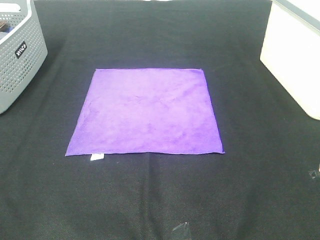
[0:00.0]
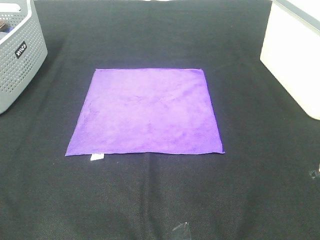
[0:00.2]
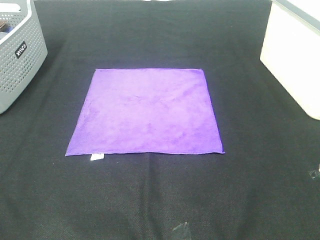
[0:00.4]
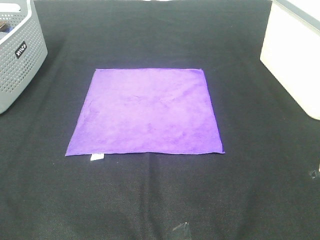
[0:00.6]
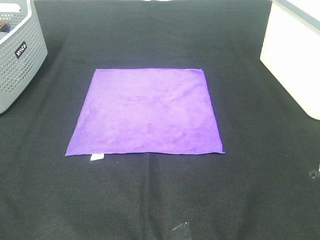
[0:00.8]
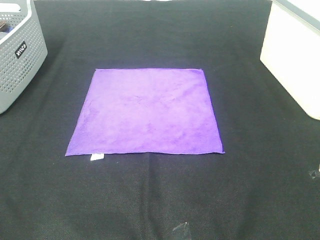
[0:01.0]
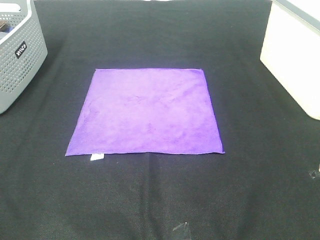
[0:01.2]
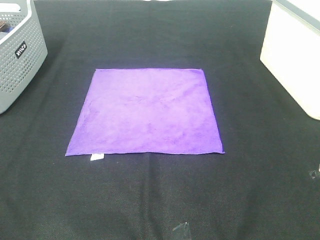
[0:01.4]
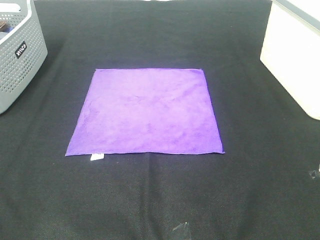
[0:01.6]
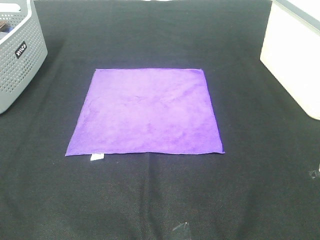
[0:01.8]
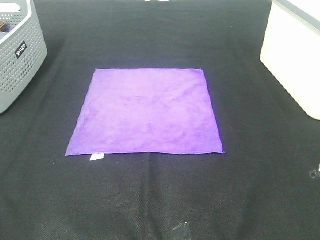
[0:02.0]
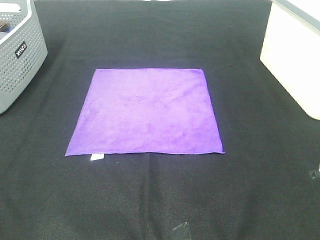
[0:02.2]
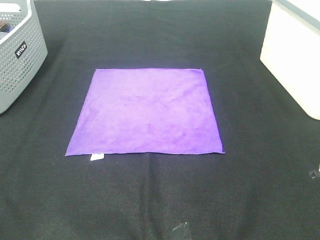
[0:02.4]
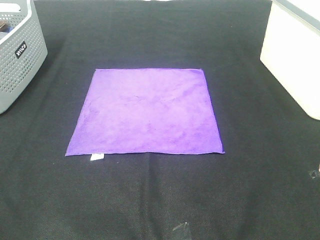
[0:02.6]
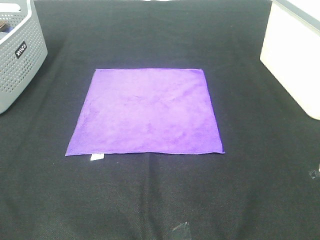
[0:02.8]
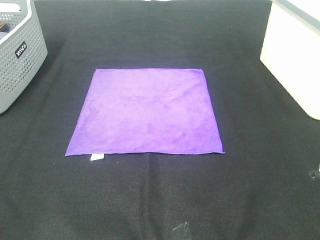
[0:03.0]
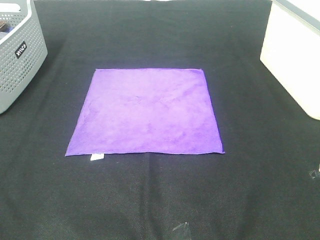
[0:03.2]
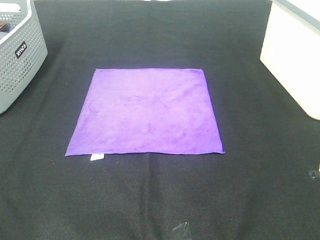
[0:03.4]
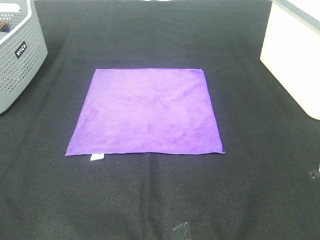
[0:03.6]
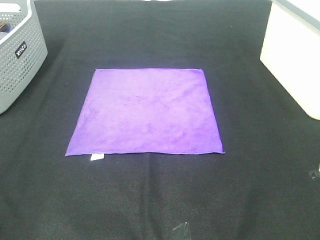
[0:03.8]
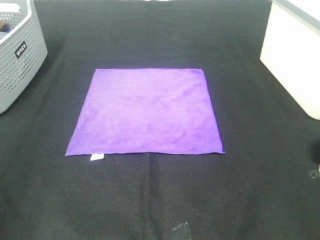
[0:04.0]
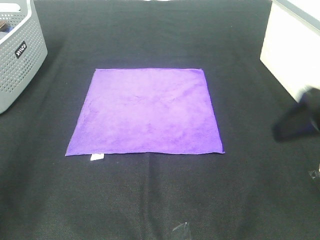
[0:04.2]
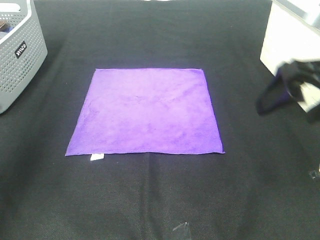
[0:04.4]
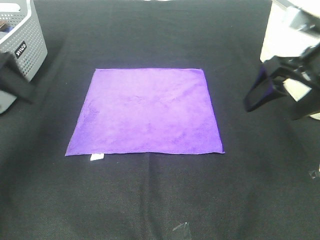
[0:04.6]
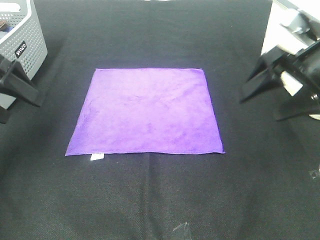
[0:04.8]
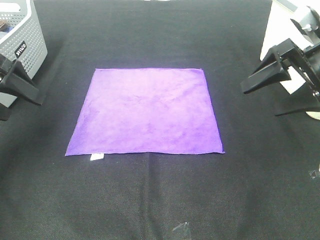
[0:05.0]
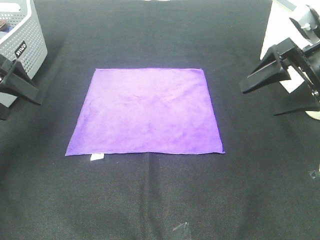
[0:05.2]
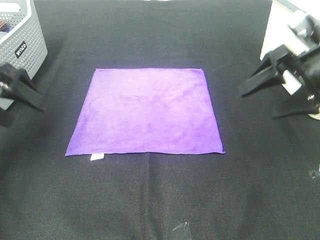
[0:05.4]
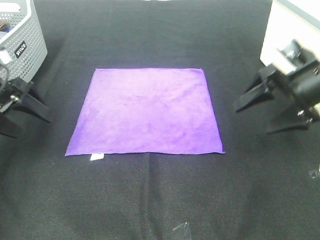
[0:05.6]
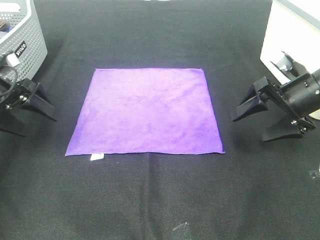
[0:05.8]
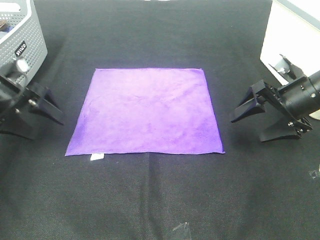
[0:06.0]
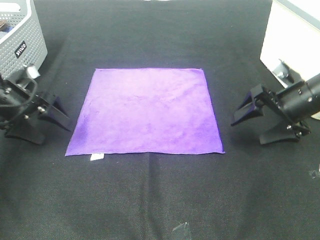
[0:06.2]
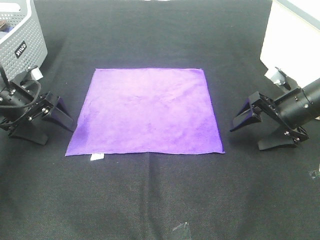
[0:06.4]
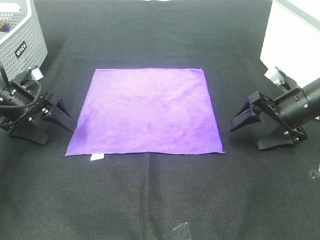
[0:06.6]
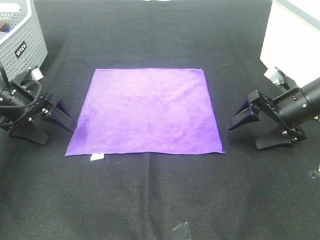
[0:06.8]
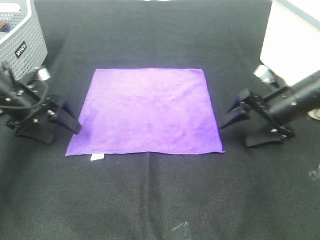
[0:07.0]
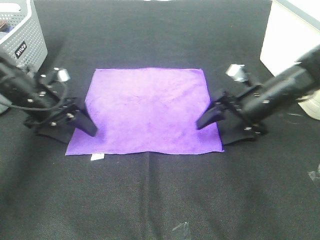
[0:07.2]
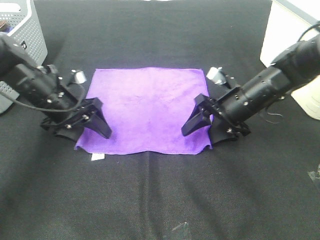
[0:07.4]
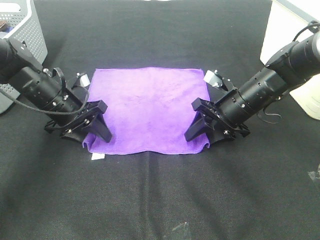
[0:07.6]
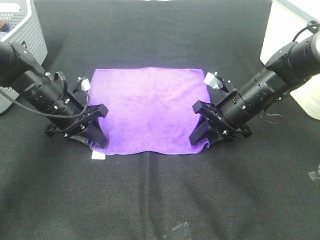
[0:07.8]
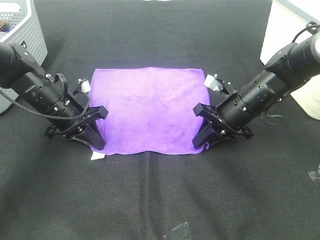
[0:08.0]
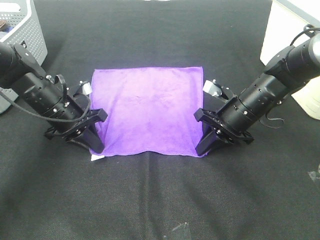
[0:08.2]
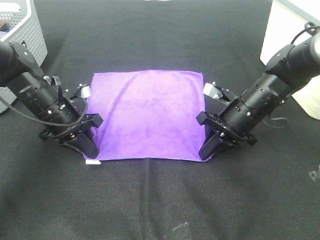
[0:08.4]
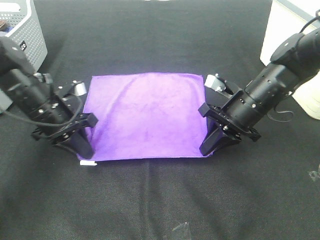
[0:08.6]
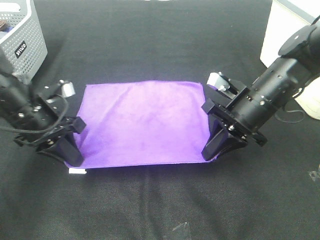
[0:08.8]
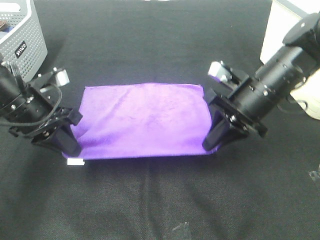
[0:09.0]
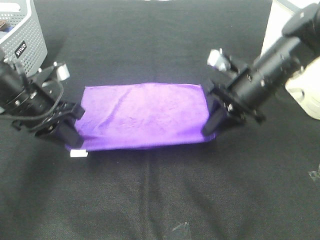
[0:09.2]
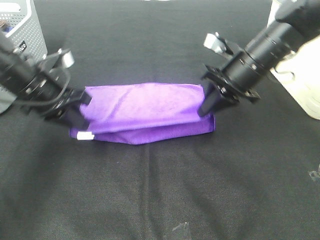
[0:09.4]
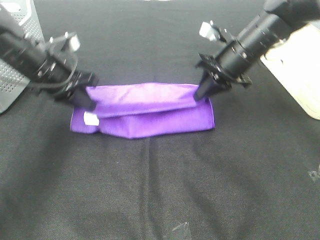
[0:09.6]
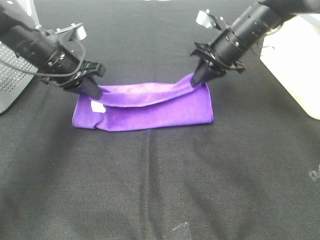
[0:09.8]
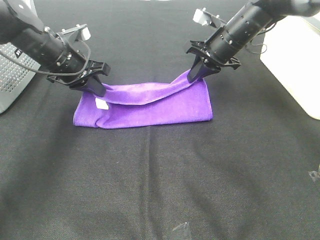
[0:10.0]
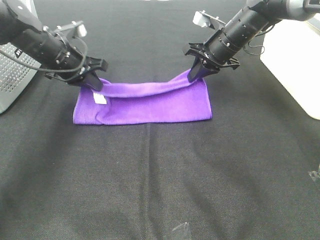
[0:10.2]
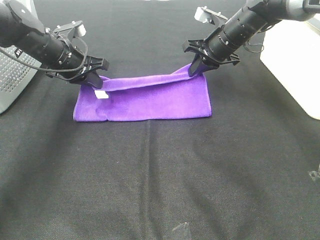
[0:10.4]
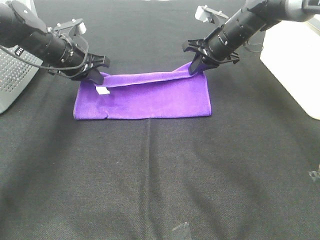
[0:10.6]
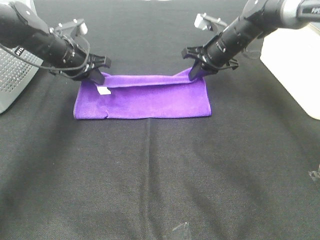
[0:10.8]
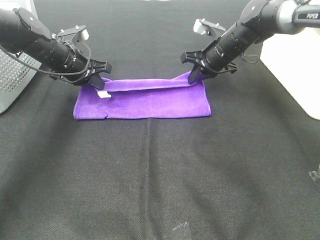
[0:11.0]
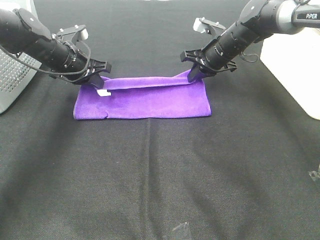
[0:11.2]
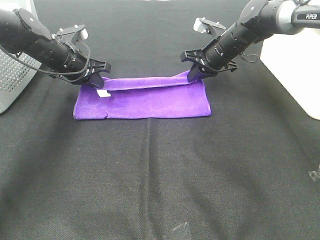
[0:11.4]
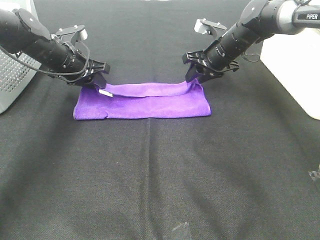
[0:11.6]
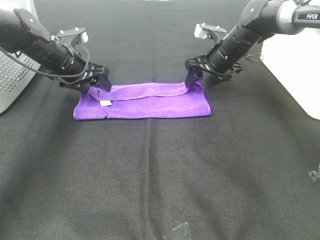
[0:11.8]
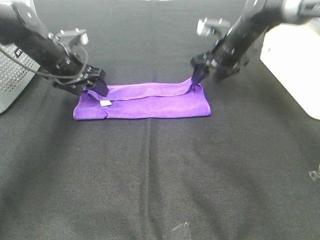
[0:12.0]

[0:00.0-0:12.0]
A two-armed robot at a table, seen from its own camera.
Task of the whole recording: Fold towels.
Step, 0:00.0 to 0:08.0: Left hand: grab the bottom left corner of purple towel.
Step, 0:00.0 to 0:08.0: Right hand: grab the bottom right corner of purple towel.
Step, 0:08.2 to 0:11.2: Left hand: fold the purple towel up.
Step, 0:08.2 to 0:11.2: Right hand: fold the purple towel up.
0:00.0 to 0:03.0: The two grippers keep their place.
0:03.0 to 0:04.4: The grippers both shift forward by some 25 cm.
0:04.4 to 0:06.0: The grippers both shift downward and forward by some 15 cm.
0:06.0 to 0:07.6: The left gripper travels to the right by roughly 10 cm, and closes its fingers; the right gripper is displaced to the left by roughly 10 cm, and closes its fingers.
0:07.6 to 0:09.0: The left gripper travels backward and upward by some 10 cm, and closes its fingers. The right gripper travels upward by about 5 cm, and closes up.
0:09.0 to 0:10.4: The grippers both shift forward by about 15 cm.
0:10.4 to 0:12.0: The right gripper opens up, while the left gripper opens its fingers.

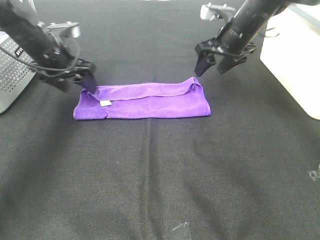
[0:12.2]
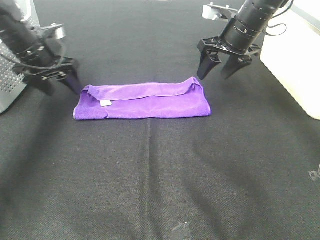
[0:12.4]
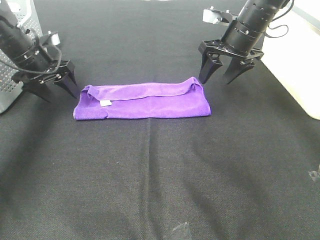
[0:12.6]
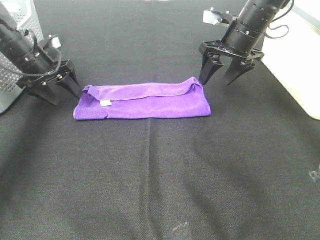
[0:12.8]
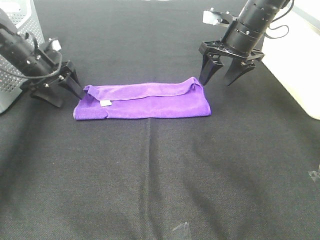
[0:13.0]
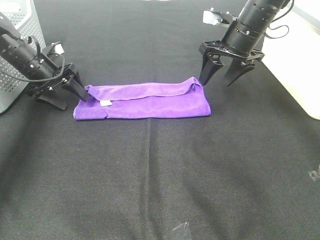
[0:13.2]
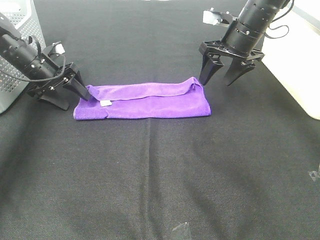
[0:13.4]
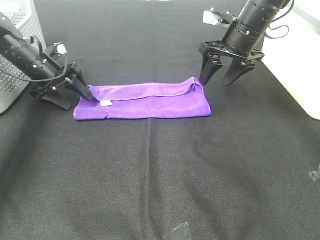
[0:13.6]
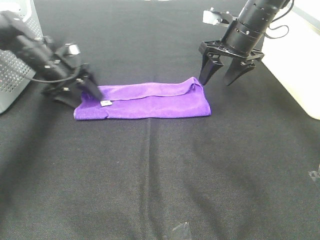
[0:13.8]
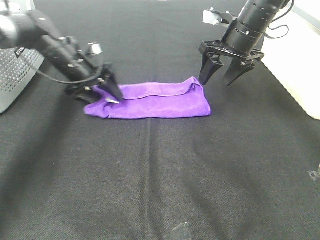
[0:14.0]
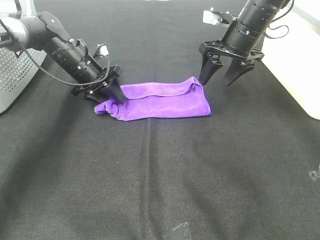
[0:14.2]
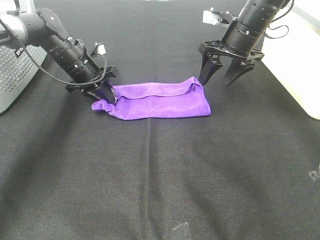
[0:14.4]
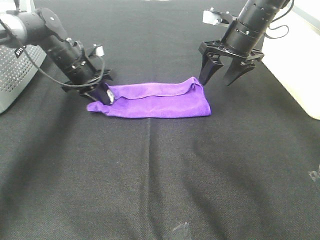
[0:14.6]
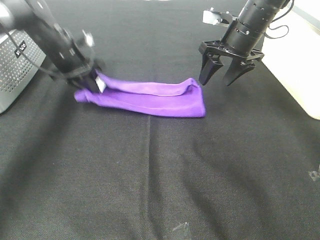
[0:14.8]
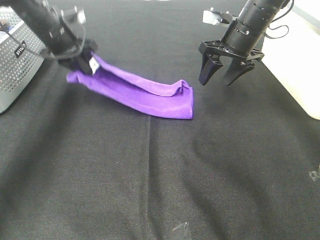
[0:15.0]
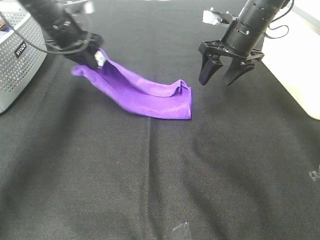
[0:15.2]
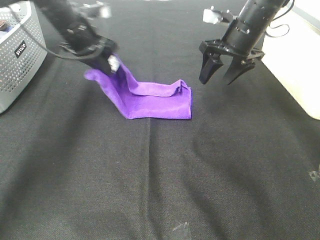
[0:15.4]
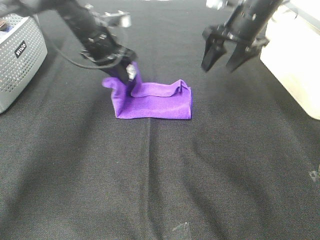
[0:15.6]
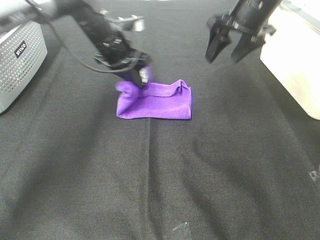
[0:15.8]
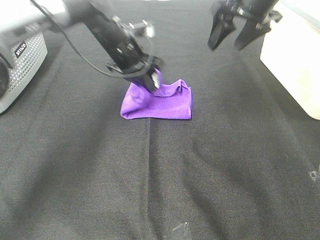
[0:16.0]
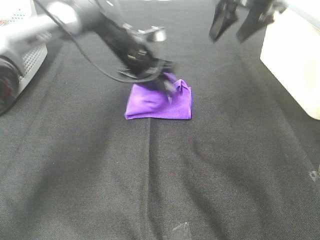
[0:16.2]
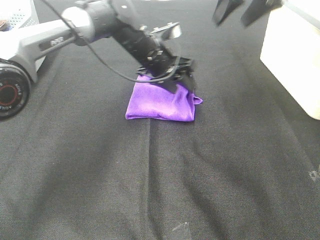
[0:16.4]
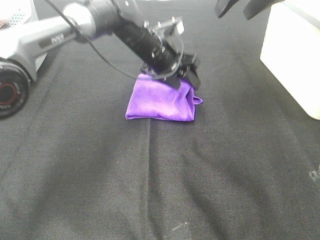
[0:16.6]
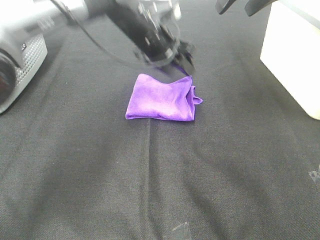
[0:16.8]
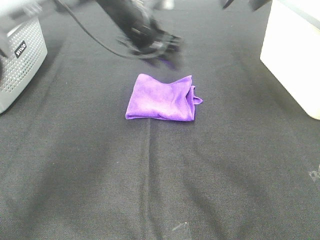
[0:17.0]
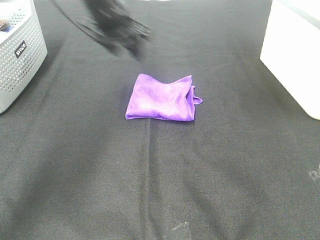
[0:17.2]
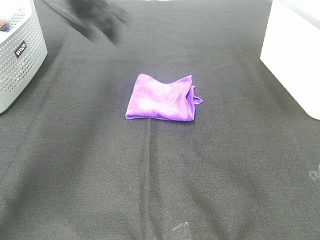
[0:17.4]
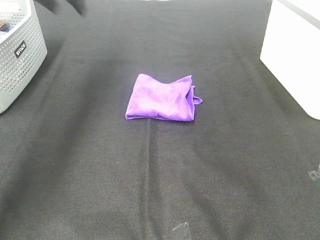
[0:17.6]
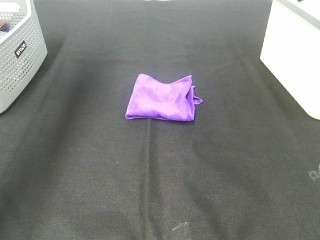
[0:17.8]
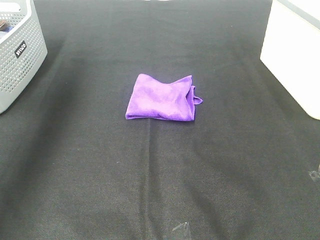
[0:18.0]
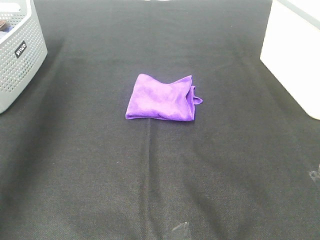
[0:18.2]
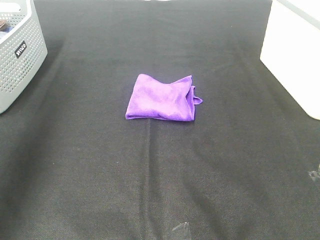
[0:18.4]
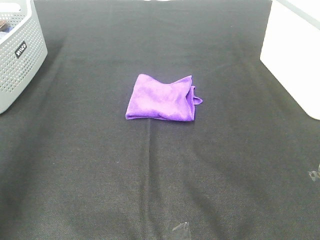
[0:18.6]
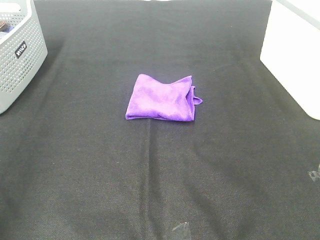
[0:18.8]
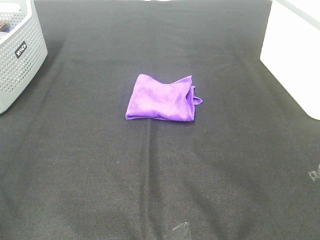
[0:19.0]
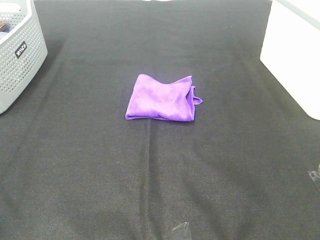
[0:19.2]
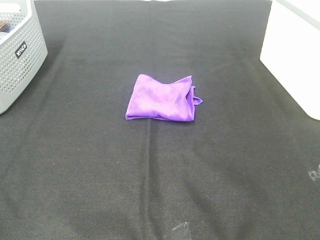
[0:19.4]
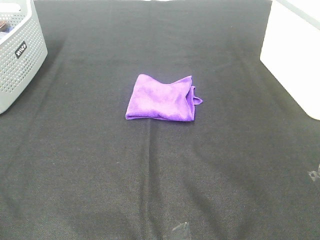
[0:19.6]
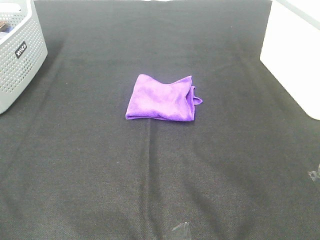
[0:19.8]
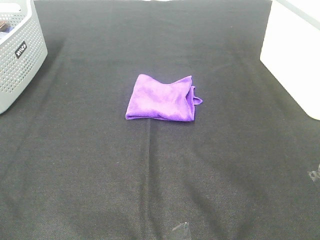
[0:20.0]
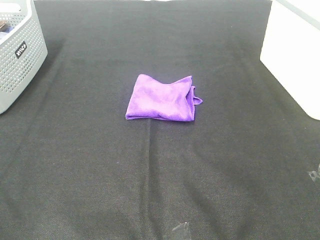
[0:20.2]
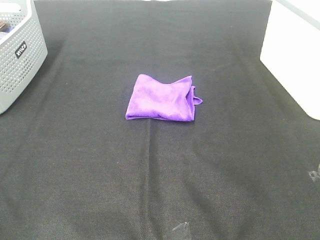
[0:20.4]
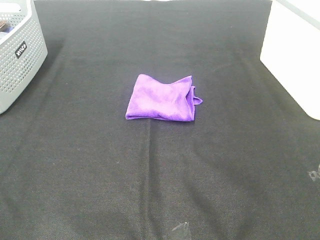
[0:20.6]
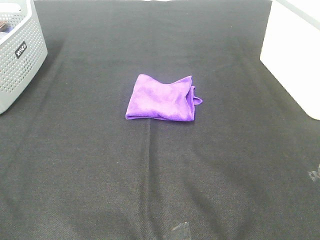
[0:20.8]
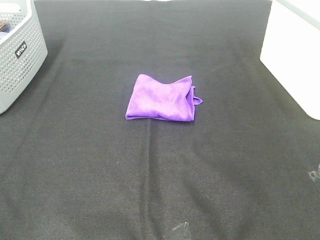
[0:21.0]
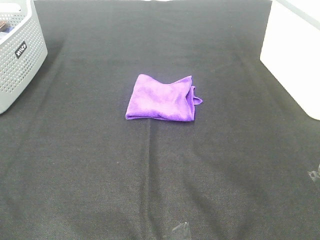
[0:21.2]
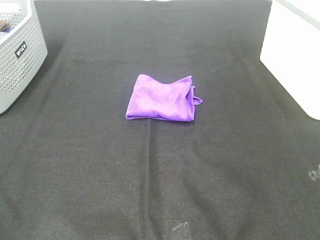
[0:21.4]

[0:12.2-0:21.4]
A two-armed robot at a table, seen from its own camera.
Task of the whole recording: Fold towels.
Step, 0:12.2 to 0:16.2: Left hand: fold the purple towel from left to right.
0:12.2 to 0:13.8: The left gripper goes approximately 5 cm downward.
0:13.8 to 0:15.2: The left gripper heads upward, covering about 10 cm, and closes.
0:15.2 to 0:16.8: The right gripper shifts about 15 cm upward, while the left gripper goes some 15 cm to the right, and opens.
0:16.8 to 0:18.4: The left gripper is displaced to the left, backward and upward by some 40 cm. Meanwhile the right gripper goes approximately 30 cm backward.
0:18.4 to 0:19.8: The left gripper heads backward and downward, covering roughly 25 cm.
0:19.8 to 0:21.4: The two grippers keep their place.

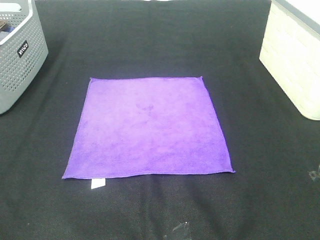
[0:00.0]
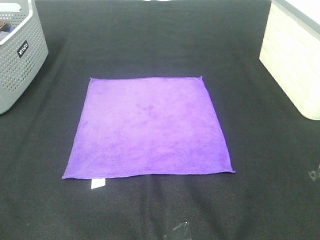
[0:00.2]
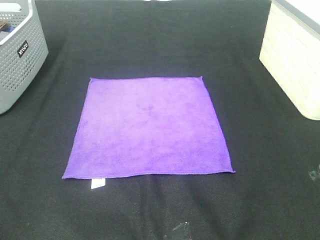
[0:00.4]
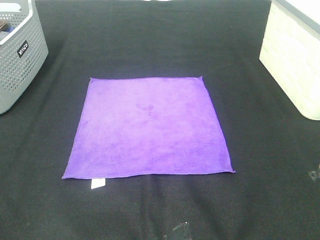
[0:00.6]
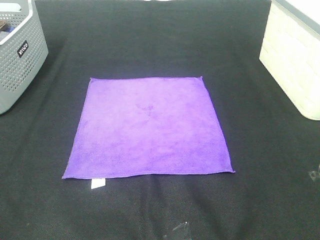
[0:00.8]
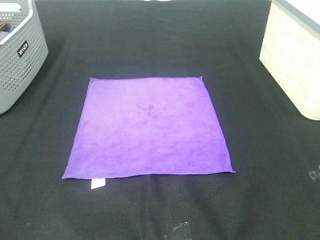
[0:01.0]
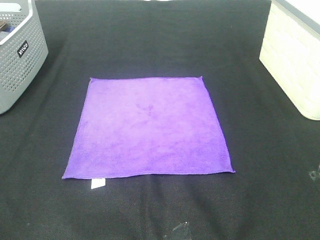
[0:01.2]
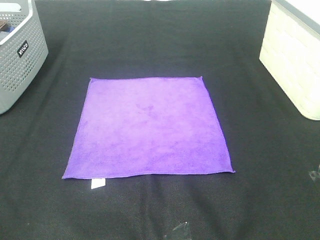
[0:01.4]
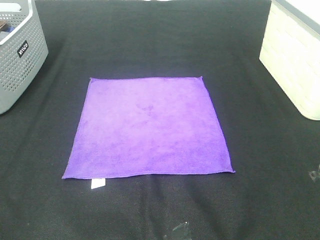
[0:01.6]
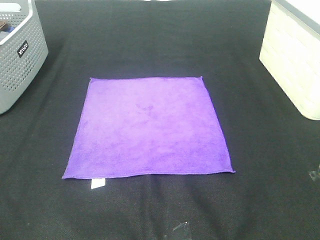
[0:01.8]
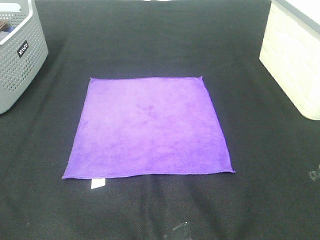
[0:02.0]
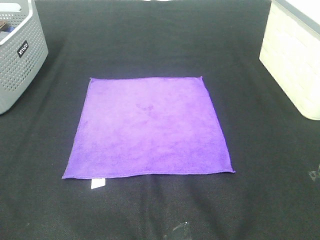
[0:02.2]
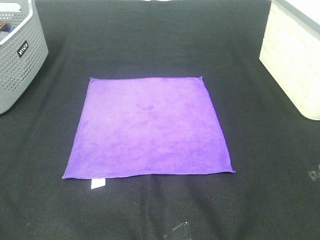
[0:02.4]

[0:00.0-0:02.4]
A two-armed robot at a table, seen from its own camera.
Task of the whole recording: Fold towels.
0:00.0 to 0:02.4: Both grippers stay about where they are.
